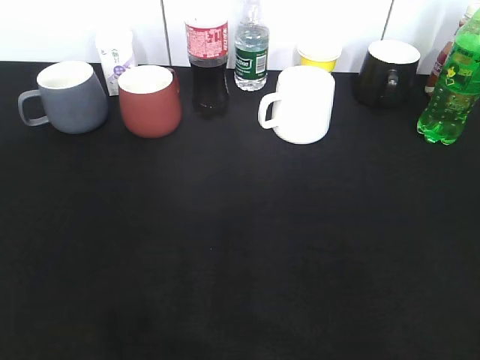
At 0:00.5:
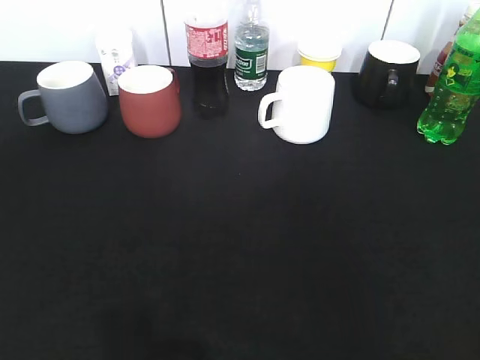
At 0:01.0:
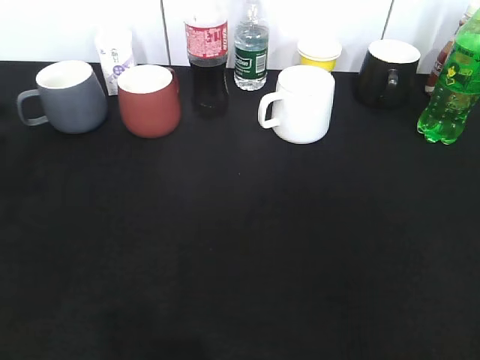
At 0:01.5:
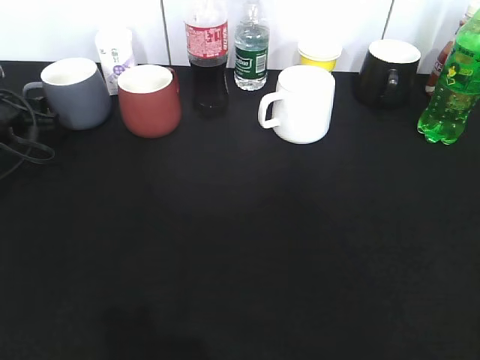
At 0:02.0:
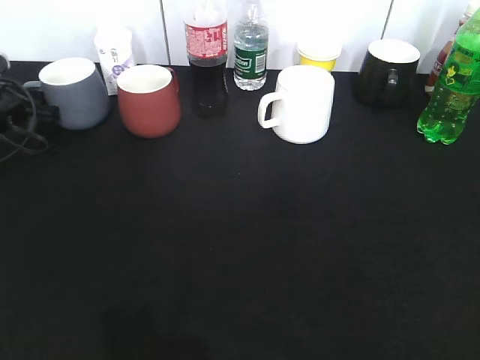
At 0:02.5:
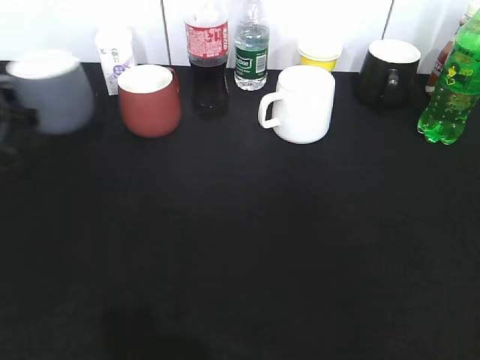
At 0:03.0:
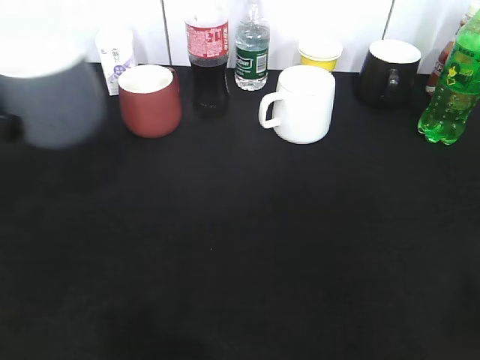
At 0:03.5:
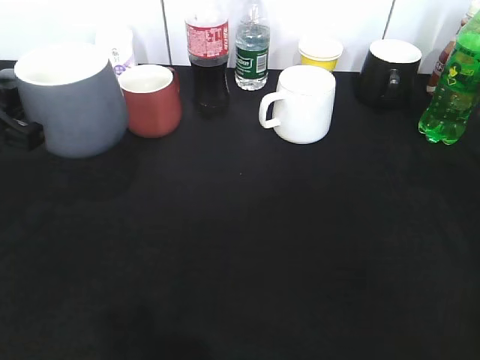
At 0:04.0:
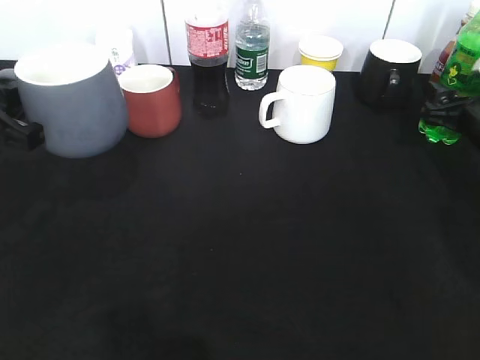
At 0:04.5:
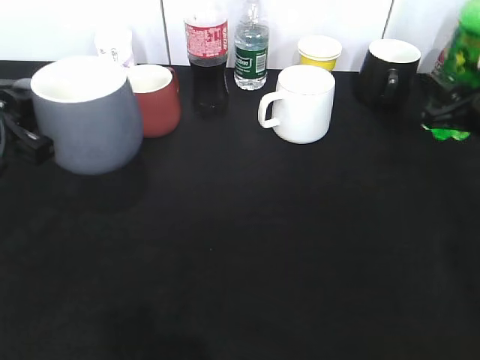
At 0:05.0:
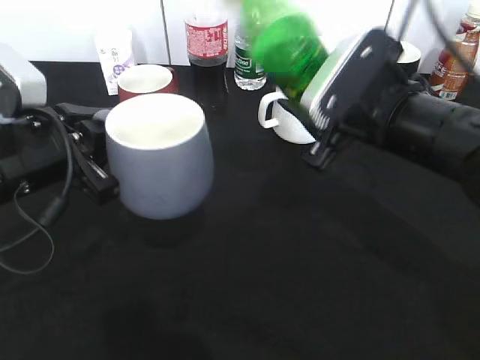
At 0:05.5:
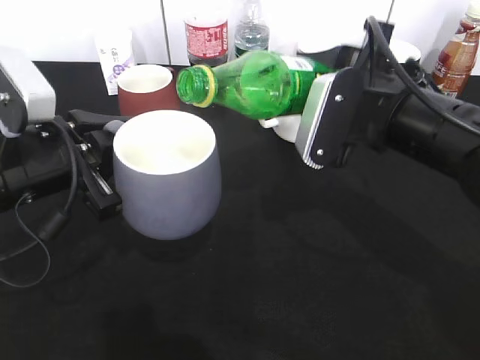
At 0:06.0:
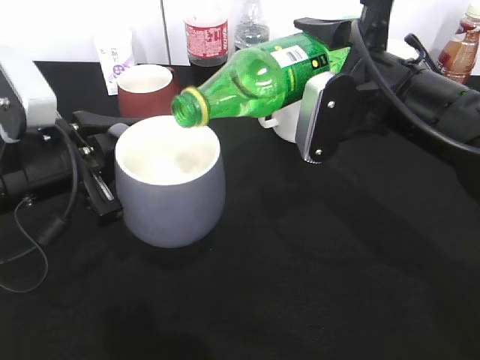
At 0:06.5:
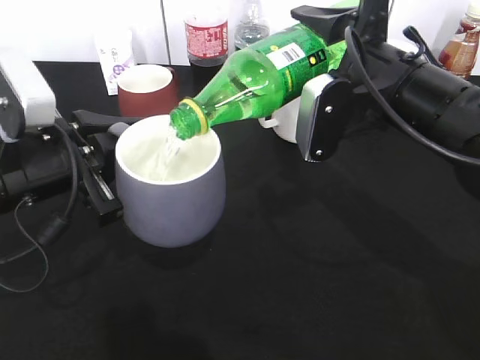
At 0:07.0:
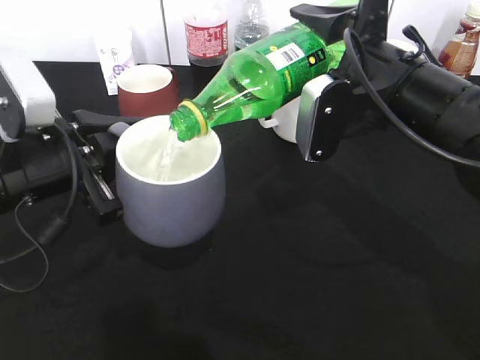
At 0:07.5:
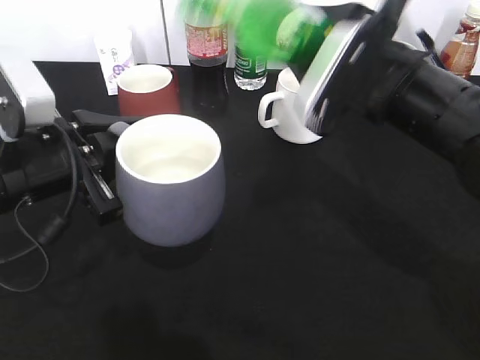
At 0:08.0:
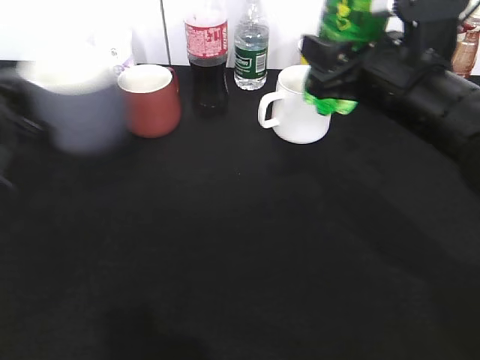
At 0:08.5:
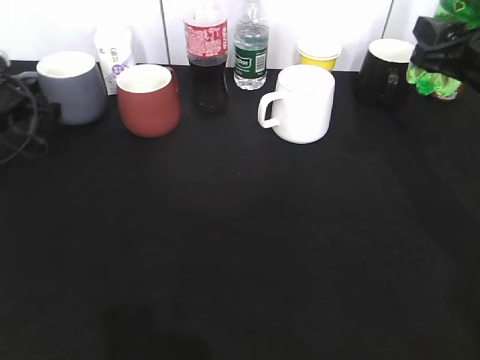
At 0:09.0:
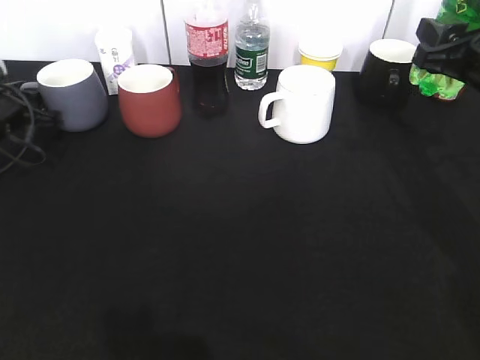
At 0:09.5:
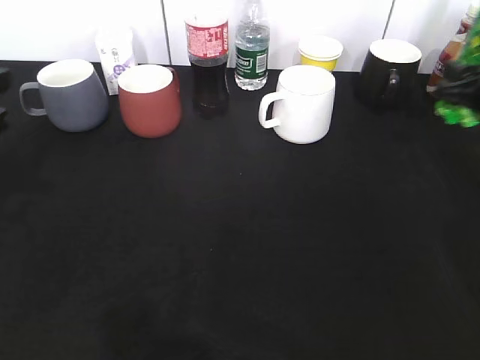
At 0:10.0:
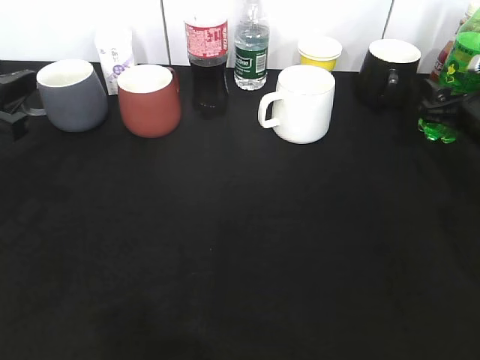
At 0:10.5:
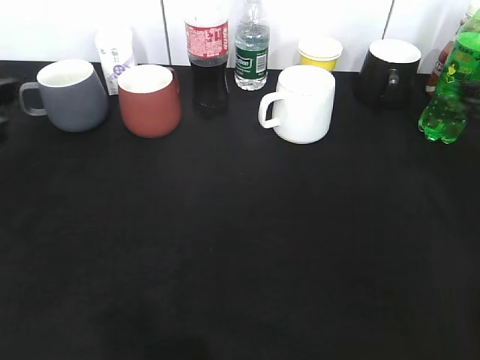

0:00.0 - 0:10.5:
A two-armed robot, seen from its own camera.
Step, 0:00.0 - 0:02.0: Grasp the grey cup with left gripper.
Step, 0:02.5 - 0:03.0: Lift the grey cup with left gripper.
Step, 0:04.5 - 0:07.0: Pour the sprite from bottle to cup with right gripper.
Step, 0:07.5 - 0:10.0: Place the sprite bottle on the table with right gripper.
0:00.0 - 0:02.0: The left gripper heads forward, covering approximately 40 cm.
0:02.0 - 0:04.0: The left gripper is displaced backward and upward by approximately 20 cm, and closes. Meanwhile the right gripper is displaced forward and downward by some 40 cm.
0:04.0 - 0:06.5: The left gripper shifts roughly 10 cm to the right. The right gripper goes about 25 cm to the left, upward and backward, and closes.
0:06.5 - 0:08.5: The right gripper shifts some 10 cm to the right. The left gripper goes some 25 cm forward and to the left.
0:08.5 - 0:10.5: The left gripper heads backward and upward, covering roughly 25 cm, and opens its fingers; the right gripper travels to the right by roughly 5 cm, travels downward and back again, about 10 cm each way, and opens its fingers.

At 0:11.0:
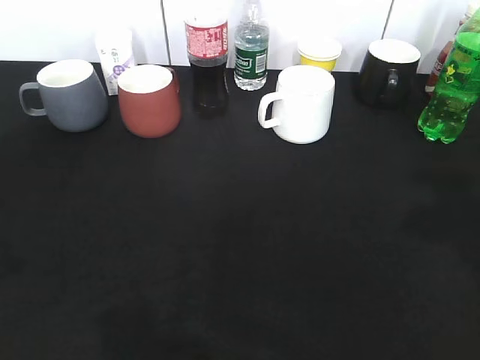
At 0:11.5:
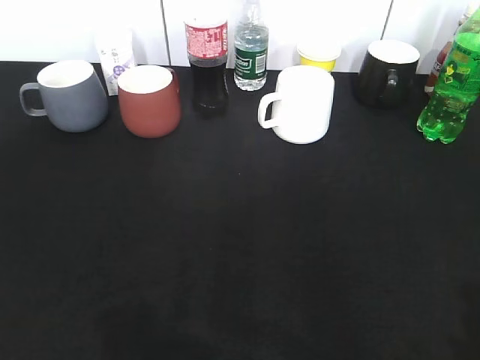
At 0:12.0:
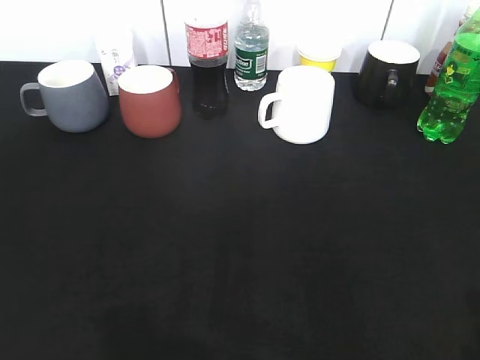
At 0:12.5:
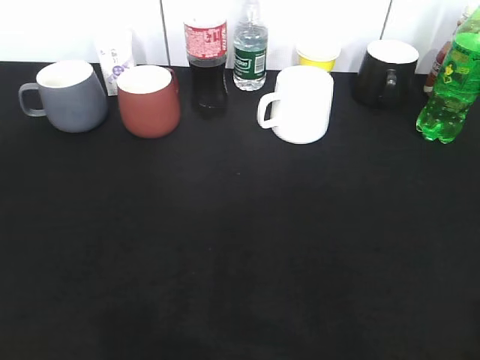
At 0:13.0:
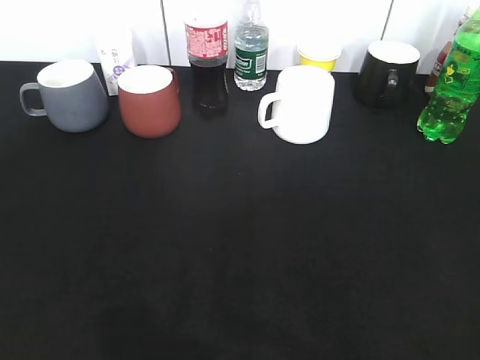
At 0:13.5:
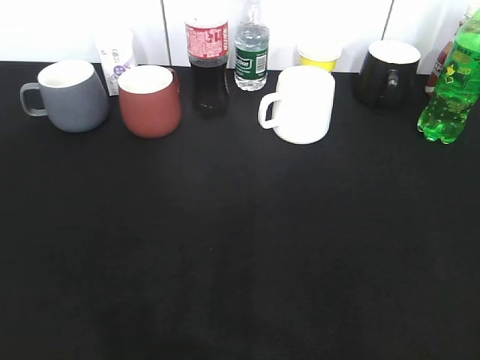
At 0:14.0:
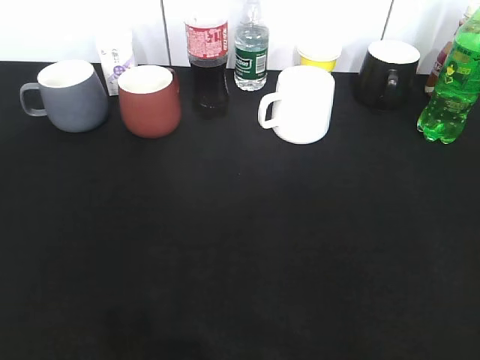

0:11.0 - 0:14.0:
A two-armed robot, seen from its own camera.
0:11.0 - 0:12.5: The left gripper goes some 10 cm backward, while the right gripper goes roughly 20 cm backward.
0:12.5 - 0:14.0: There are only small adjustments of the grippers.

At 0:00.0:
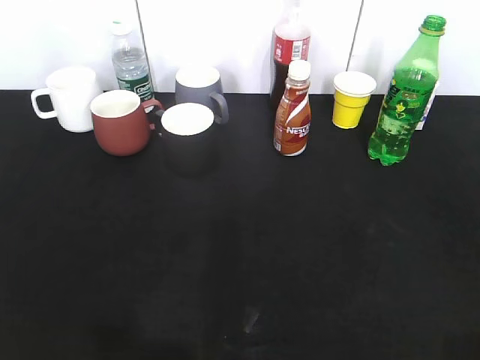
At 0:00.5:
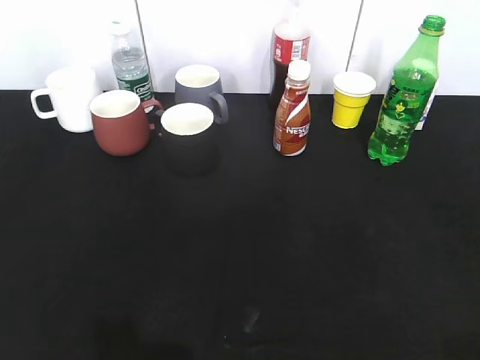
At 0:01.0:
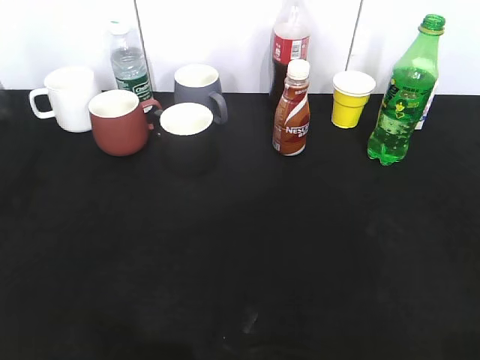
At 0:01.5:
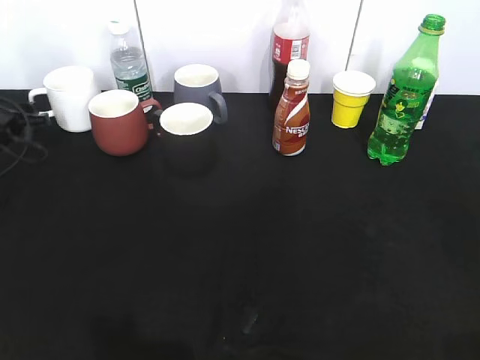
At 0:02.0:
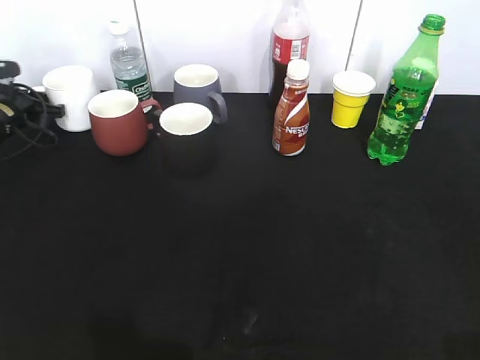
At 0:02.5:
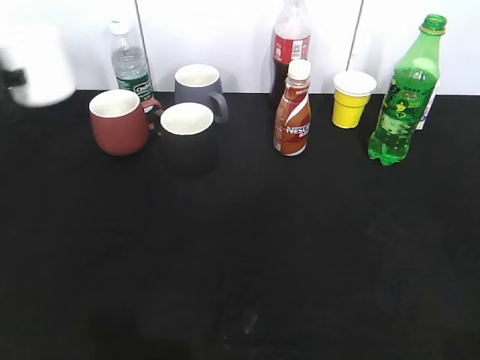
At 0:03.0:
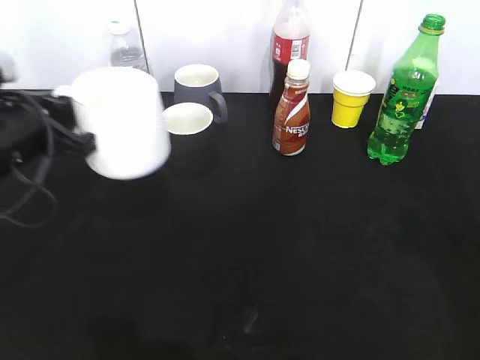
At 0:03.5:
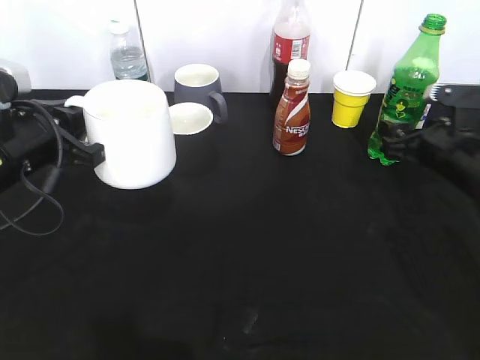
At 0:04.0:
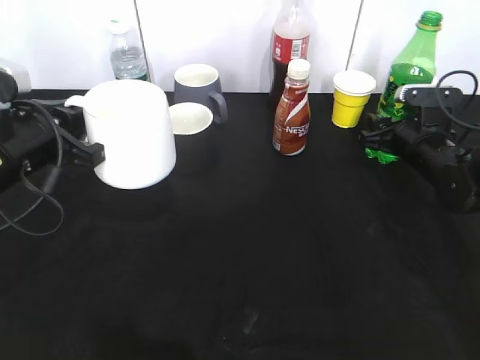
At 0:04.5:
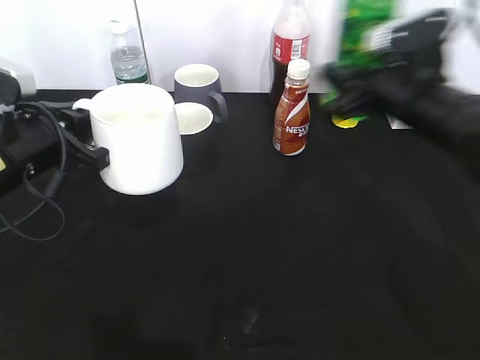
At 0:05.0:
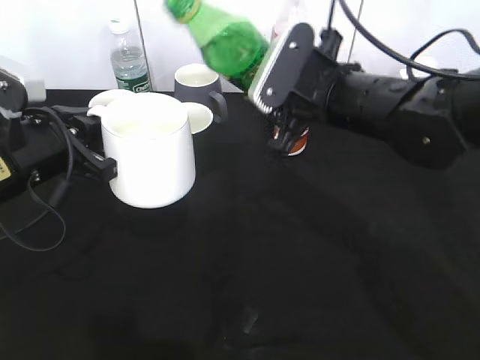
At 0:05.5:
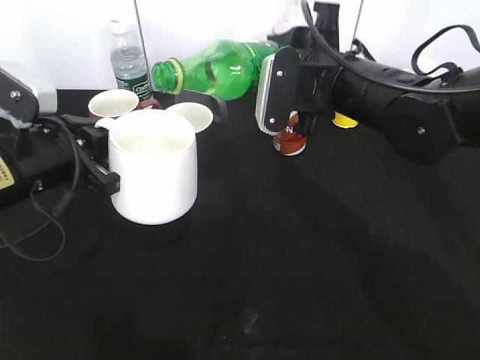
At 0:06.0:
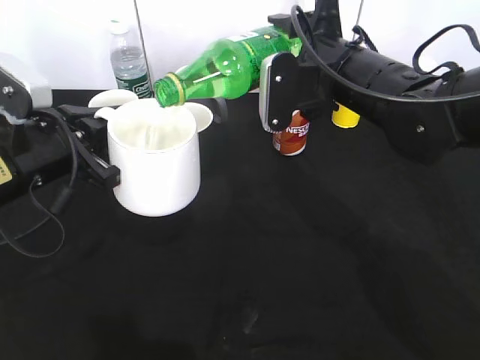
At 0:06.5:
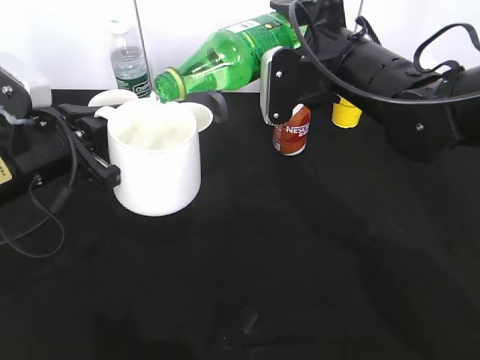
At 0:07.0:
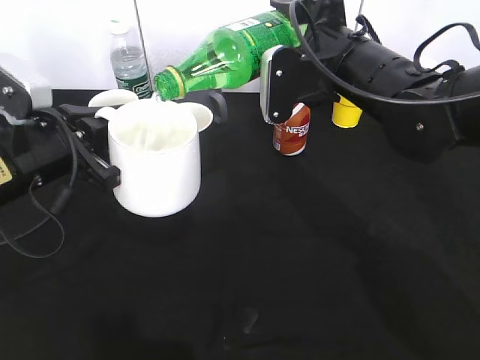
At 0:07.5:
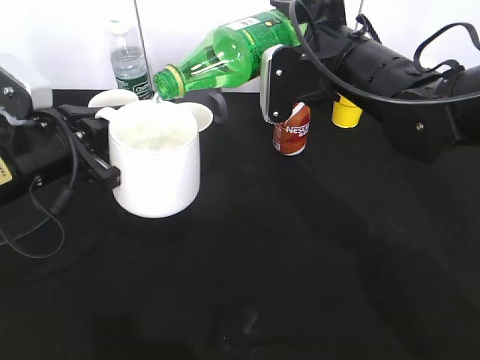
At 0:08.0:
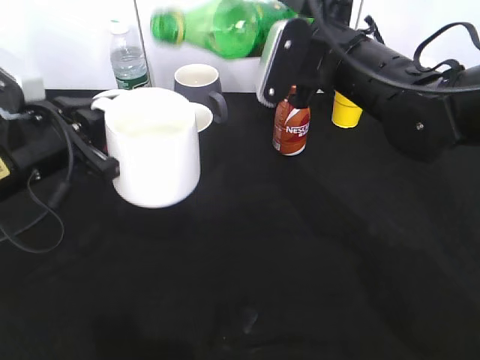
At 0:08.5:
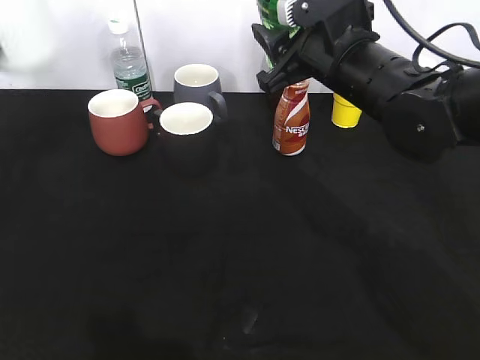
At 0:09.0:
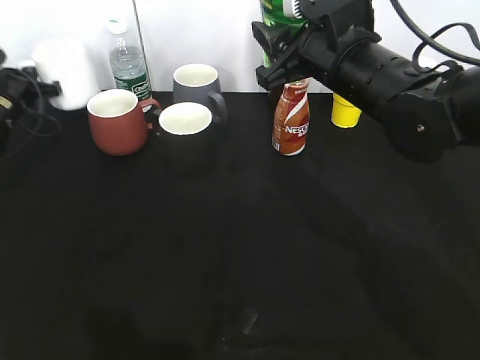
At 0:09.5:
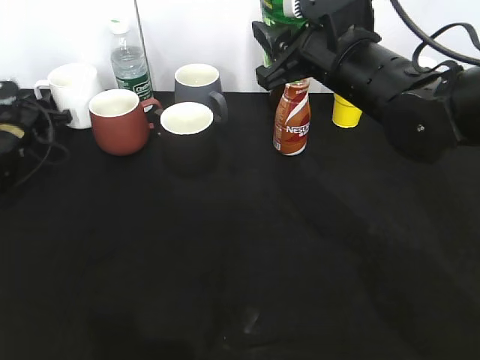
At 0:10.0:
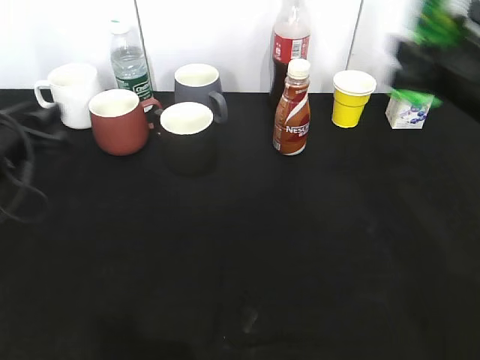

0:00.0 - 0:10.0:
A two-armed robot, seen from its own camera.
Step, 0:00.0 - 0:02.0: Grasp the white cup with left gripper.
Step, 0:02.5 - 0:03.0: Lift the white cup with left gripper.
Step, 0:03.5 - 0:04.0: Grasp the bottle with sprite with right gripper.
Step, 0:04.5 - 0:07.5: Pour the sprite from bottle to cup with right gripper.
Step, 0:08.5 - 0:09.5: Place the white cup on the table with left gripper.
0:00.0 - 0:02.0: The left gripper heads forward and downward, covering about 50 cm, and closes.
0:02.0 - 0:04.0: The right gripper heads forward and downward, covering about 50 cm, and opens and closes again. The left gripper is displaced backward, to the right and upward by some 30 cm.
0:04.0 - 0:06.0: The right gripper shifts approximately 20 cm upward, to the left and backward.
0:06.0 - 0:08.0: The grippers move only a little.
0:08.0 - 0:10.0: The left gripper goes approximately 10 cm to the left and downward, reaches roughly 25 cm forward, then returns, and opens up, while the right gripper travels to the right by approximately 15 cm.

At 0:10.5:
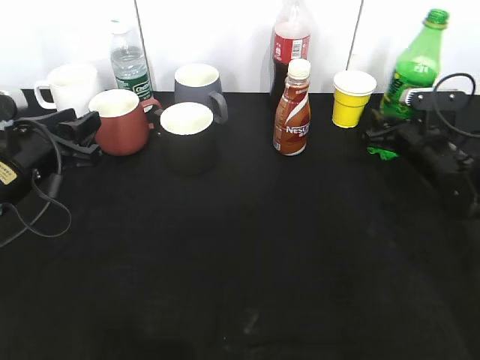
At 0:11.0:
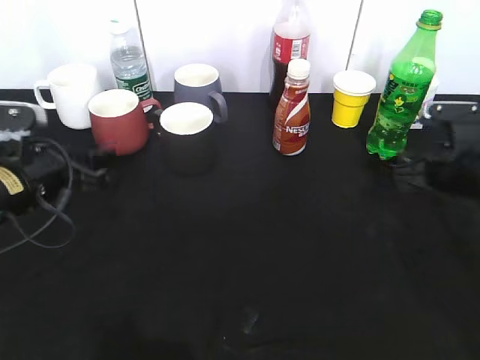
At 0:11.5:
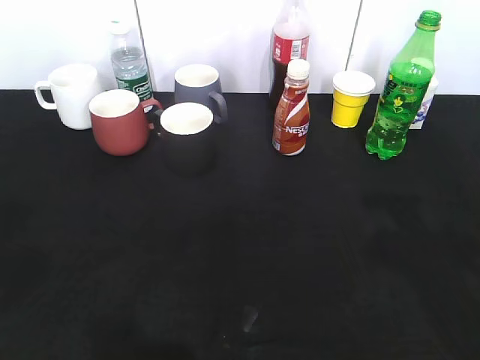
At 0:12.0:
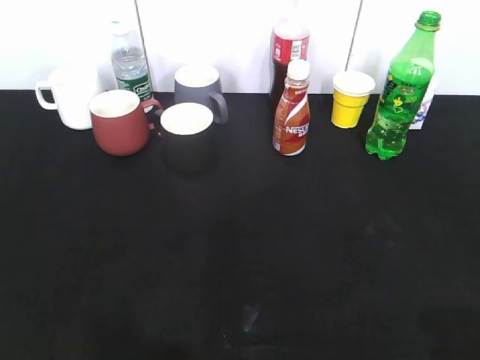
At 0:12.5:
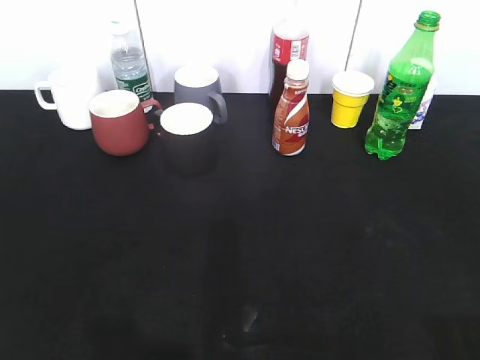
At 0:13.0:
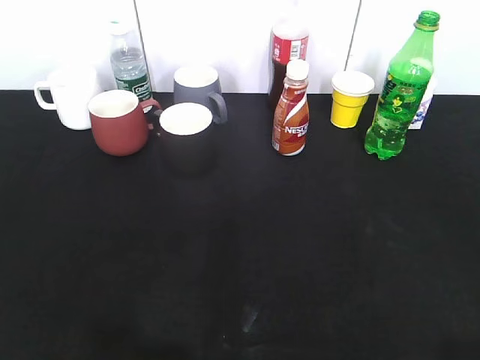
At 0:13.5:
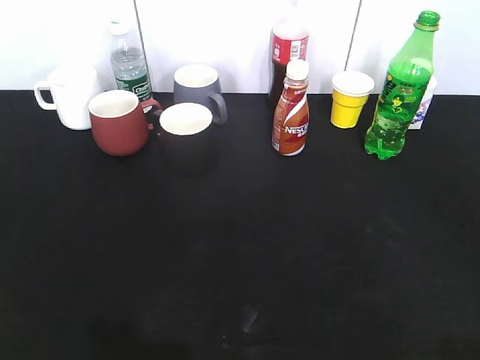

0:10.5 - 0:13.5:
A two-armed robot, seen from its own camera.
0:10.5 - 0:12.0: Both grippers travel together backward and upward, roughly 40 cm.
0:12.0 - 0:13.5: The left gripper closes.
